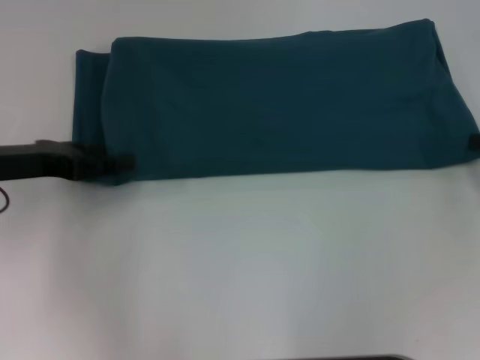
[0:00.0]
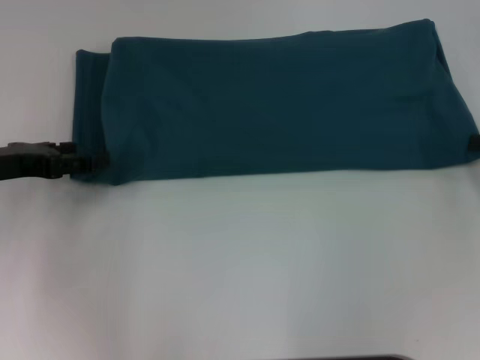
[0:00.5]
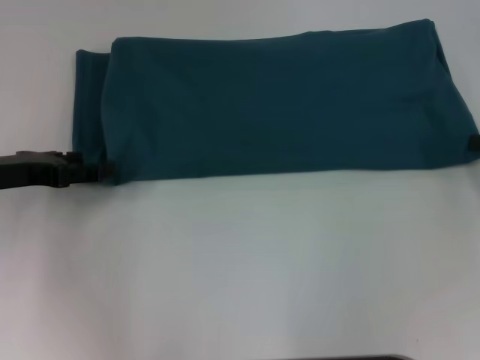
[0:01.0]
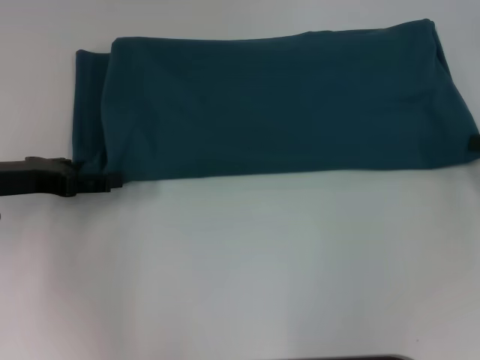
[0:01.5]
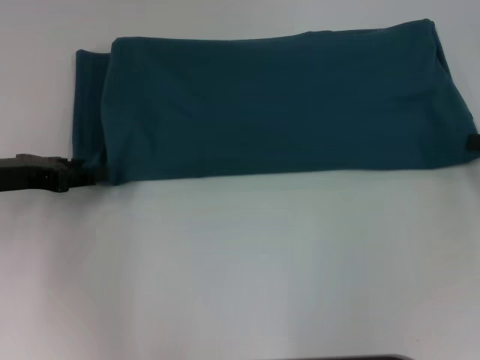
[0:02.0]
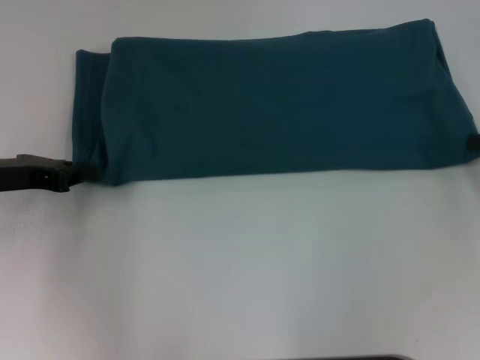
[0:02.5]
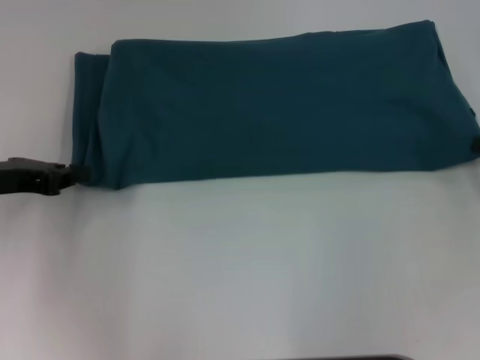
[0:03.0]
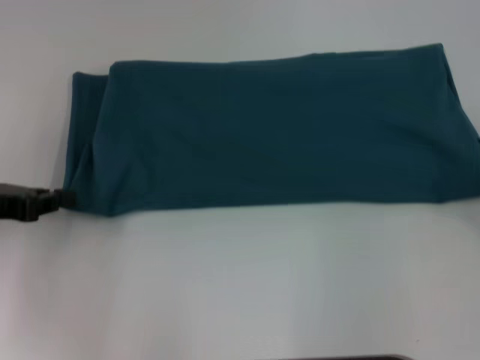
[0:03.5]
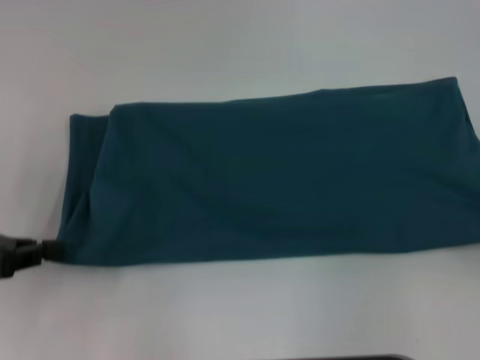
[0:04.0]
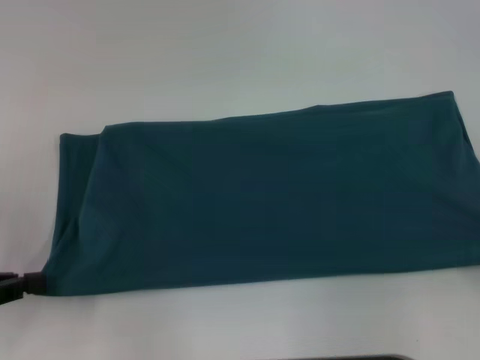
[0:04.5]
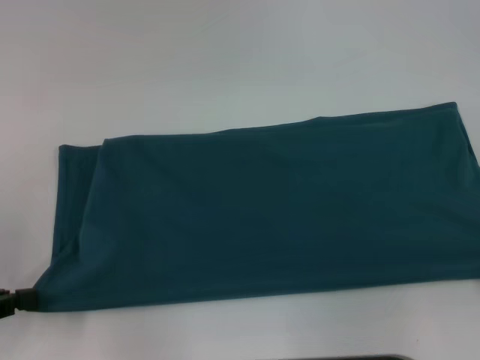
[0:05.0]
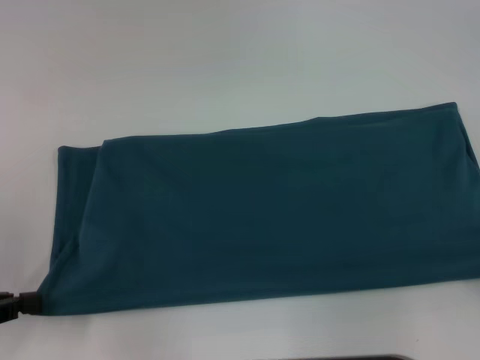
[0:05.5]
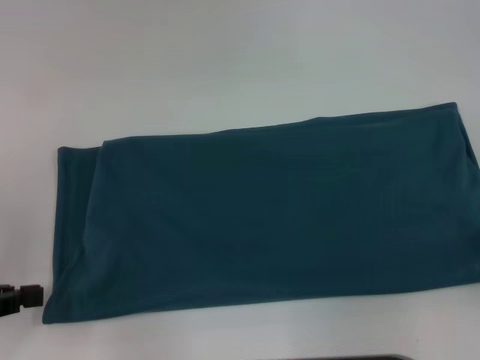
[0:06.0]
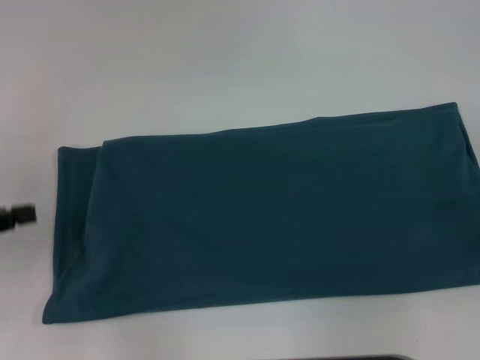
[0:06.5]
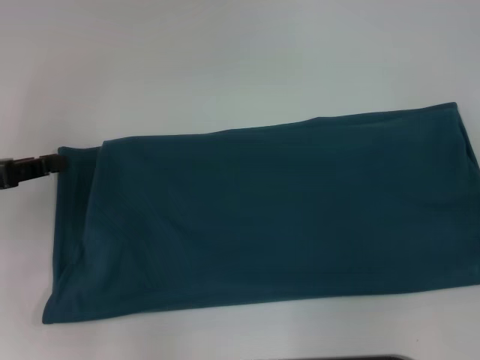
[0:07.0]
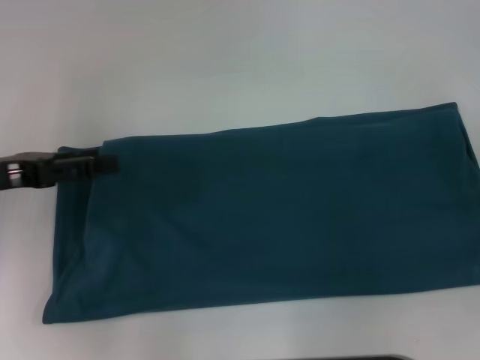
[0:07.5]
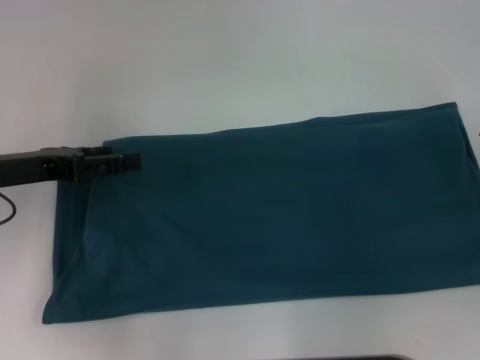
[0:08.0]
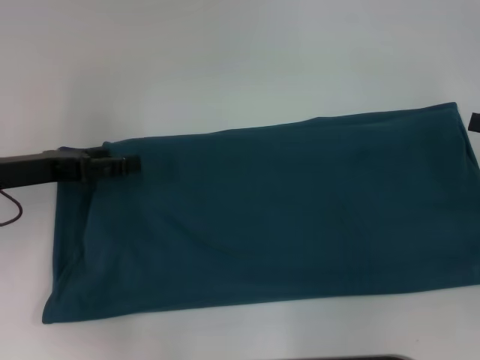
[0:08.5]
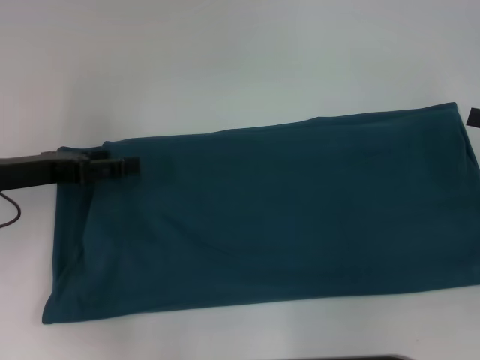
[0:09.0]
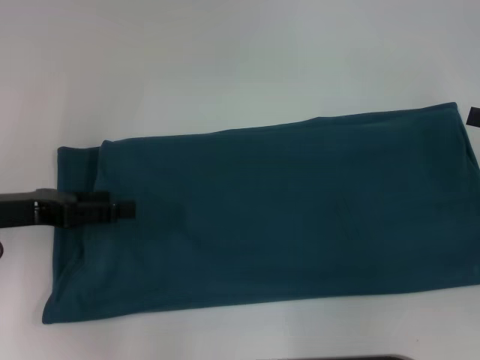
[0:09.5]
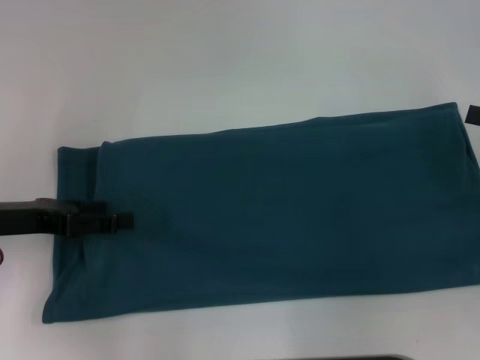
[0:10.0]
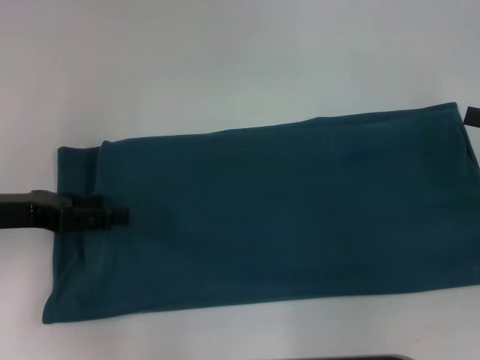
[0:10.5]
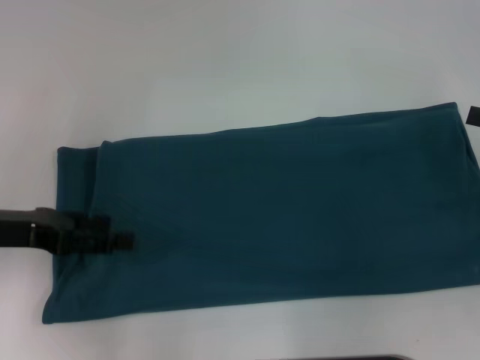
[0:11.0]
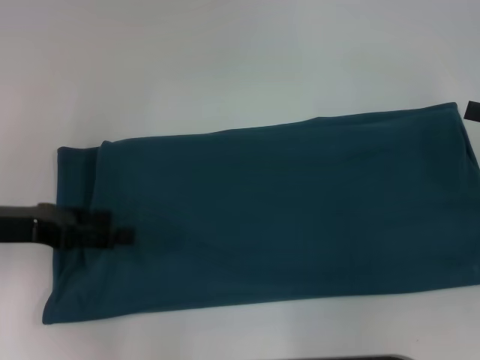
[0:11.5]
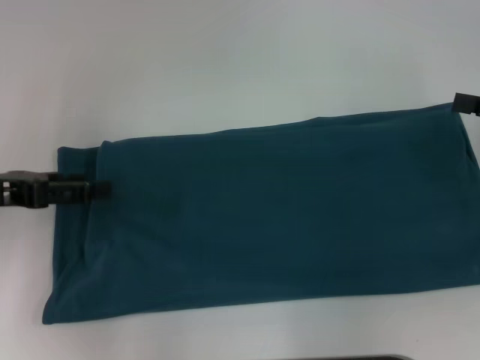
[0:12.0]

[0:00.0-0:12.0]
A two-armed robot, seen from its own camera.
0:00.0 to 0:02.0: The grippers make only small movements.
0:02.0 to 0:04.0: The left gripper moves backward, approximately 10 cm, and closes, while the right gripper moves backward, some 10 cm.
0:06.0 to 0:08.0: The left gripper is displaced forward and to the right by roughly 15 cm, and opens.
0:08.0 to 0:12.0: The grippers move only a little.

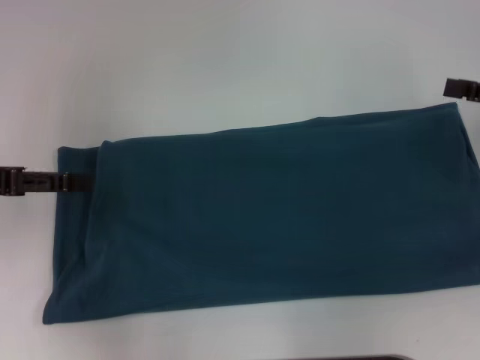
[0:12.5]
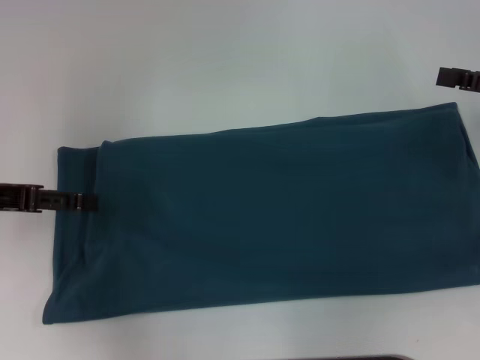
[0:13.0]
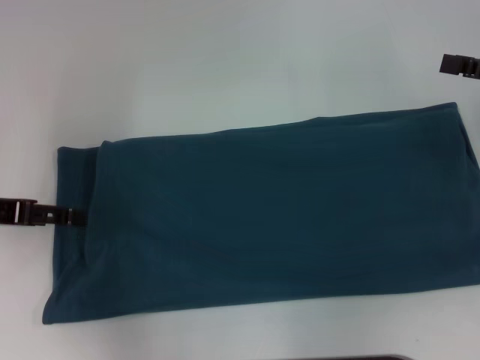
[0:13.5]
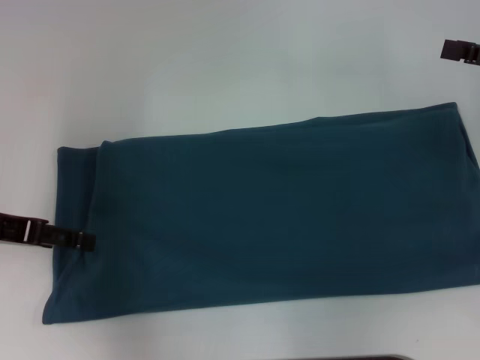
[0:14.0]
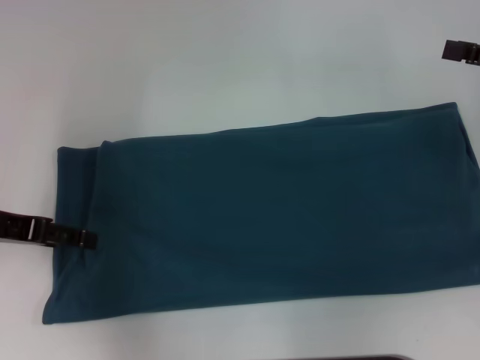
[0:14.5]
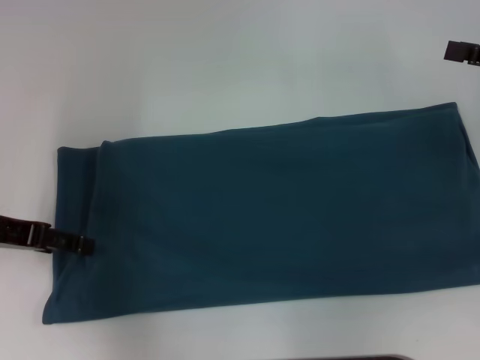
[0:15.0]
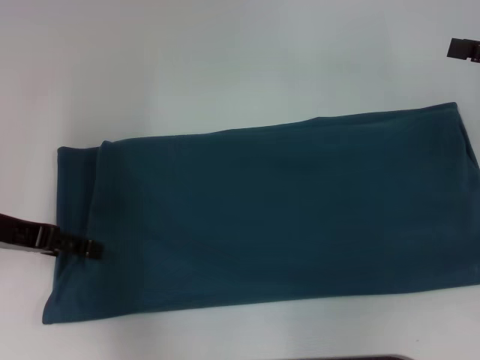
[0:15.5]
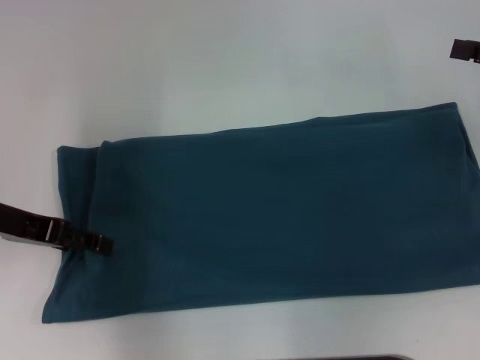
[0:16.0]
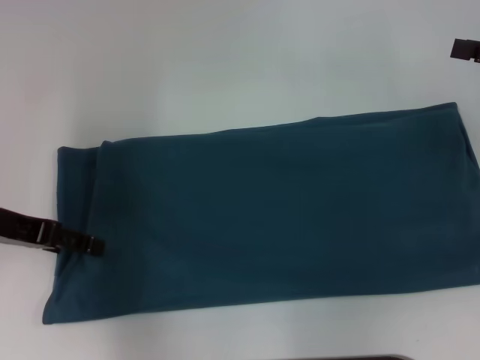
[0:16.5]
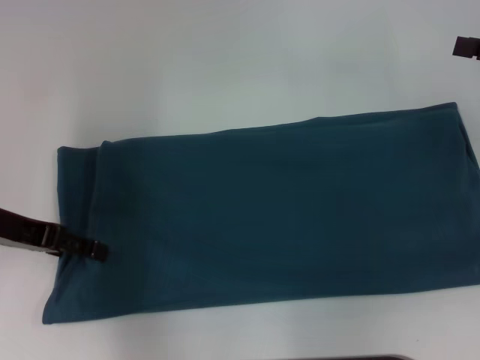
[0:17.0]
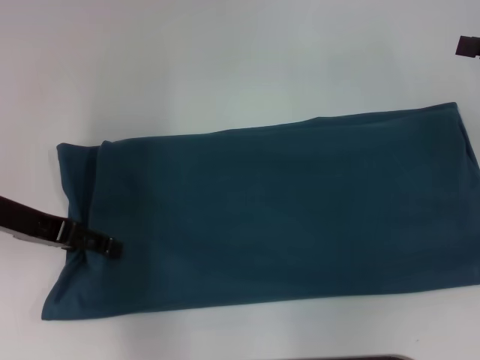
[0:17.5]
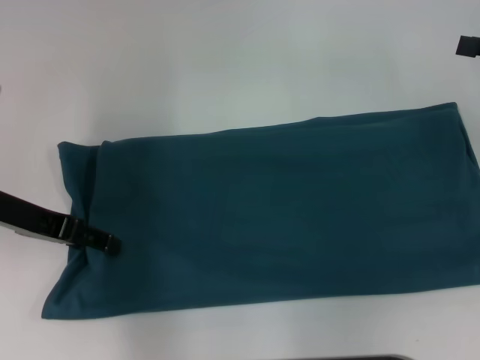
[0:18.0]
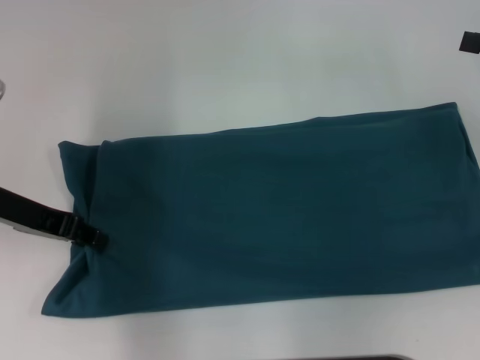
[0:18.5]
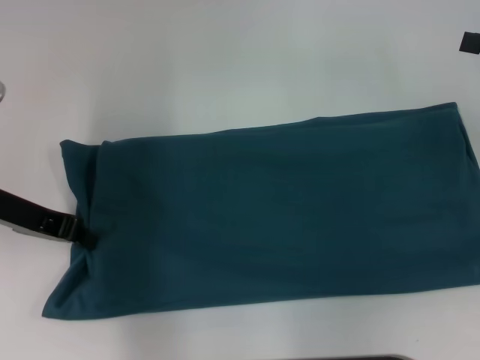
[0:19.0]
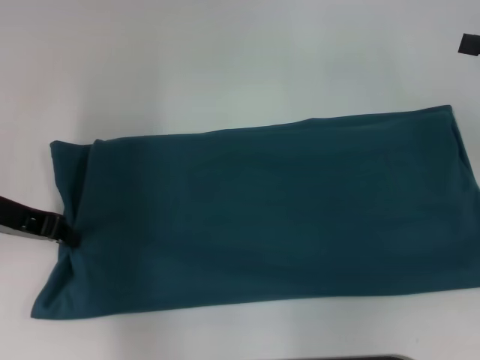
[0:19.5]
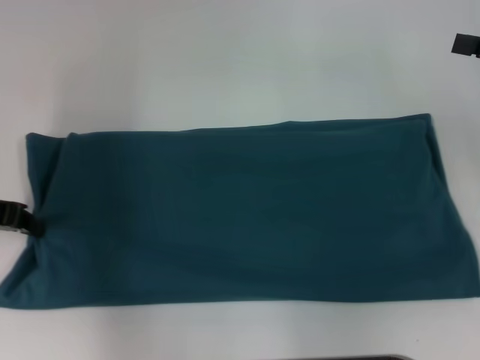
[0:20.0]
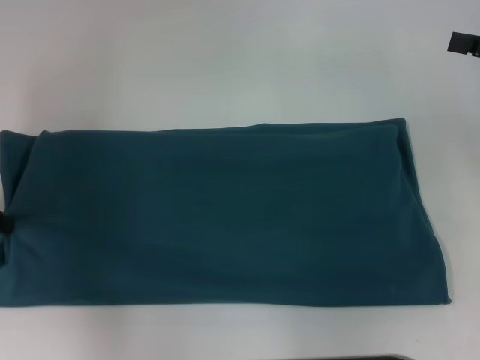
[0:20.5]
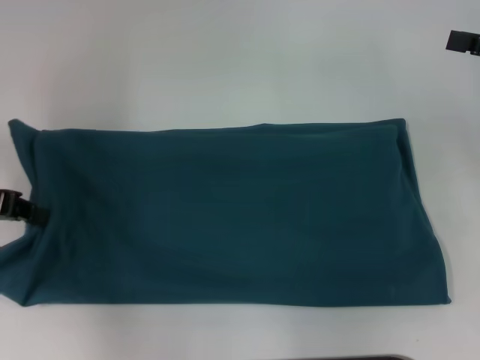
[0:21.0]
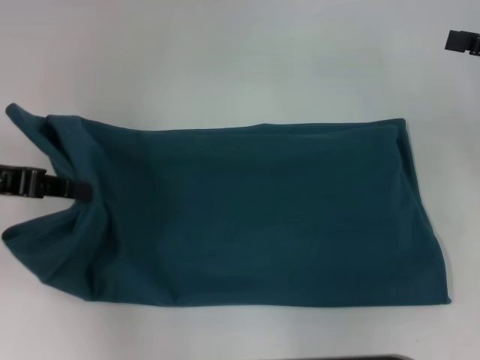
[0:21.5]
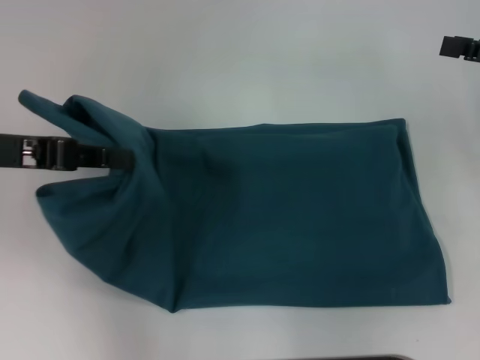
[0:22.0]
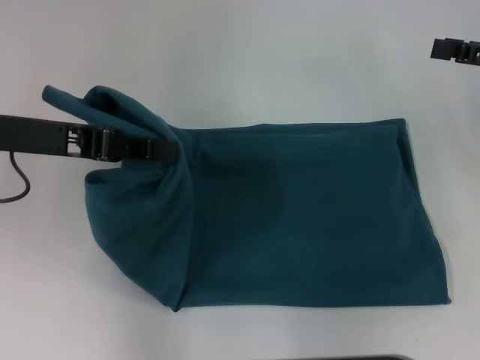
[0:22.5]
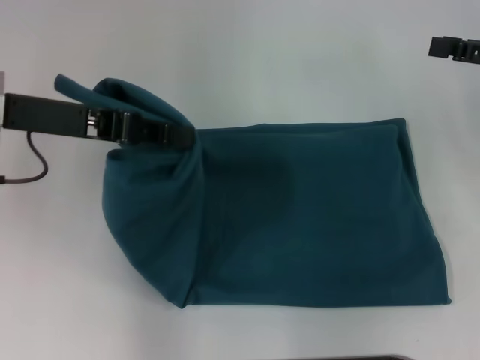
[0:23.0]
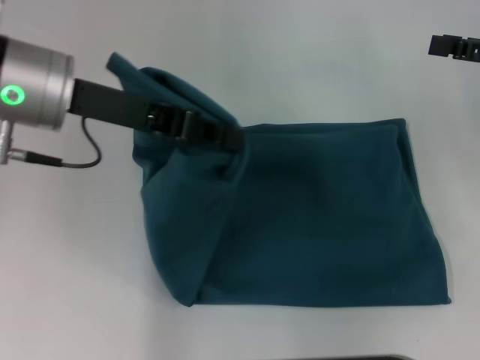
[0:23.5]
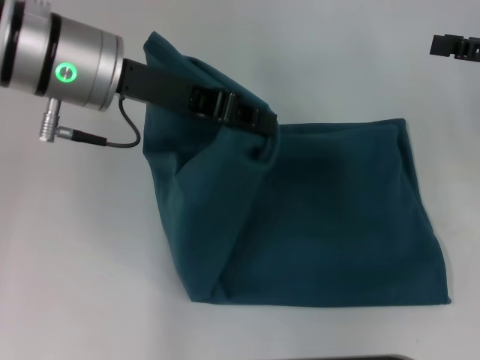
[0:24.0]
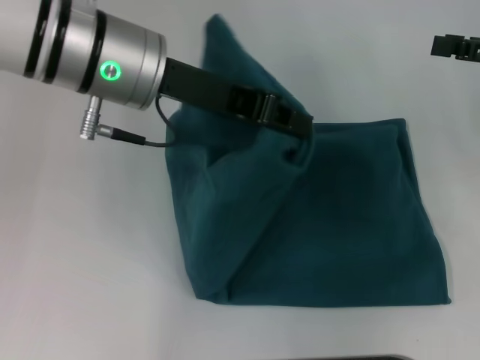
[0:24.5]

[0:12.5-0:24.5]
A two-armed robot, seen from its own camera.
0:12.5 to 0:14.5: There are only small adjustments of the grippers.
0:16.5 to 0:18.5: The left gripper closes up.
0:18.5 to 0:20.5: The left gripper is displaced to the left by some 10 cm, and closes up.
0:20.5 to 0:22.5: The left gripper is displaced to the right and upward by some 10 cm.
0:22.5 to 0:24.5: The left gripper shifts roughly 15 cm to the right.

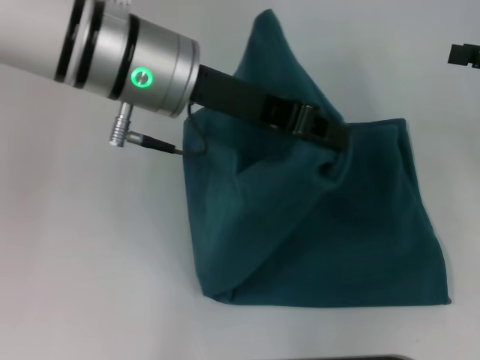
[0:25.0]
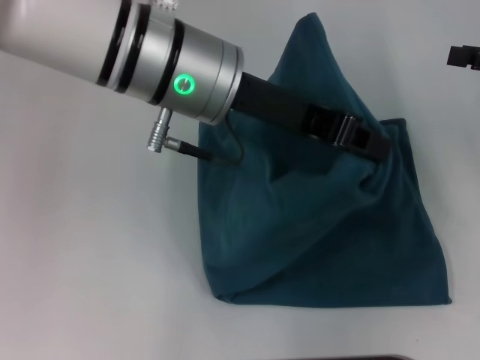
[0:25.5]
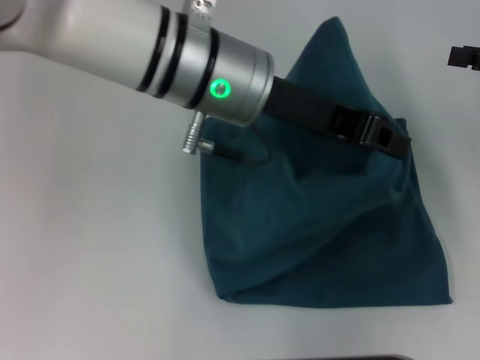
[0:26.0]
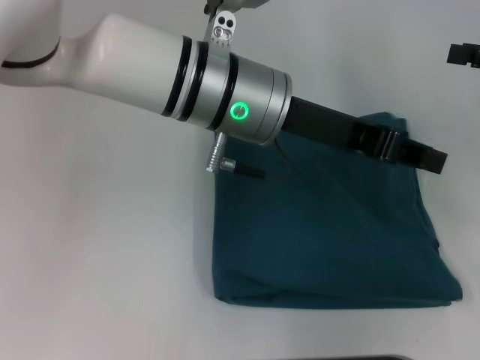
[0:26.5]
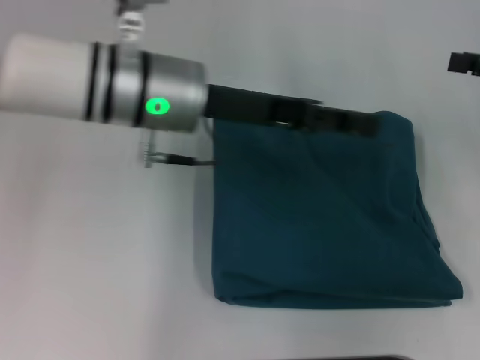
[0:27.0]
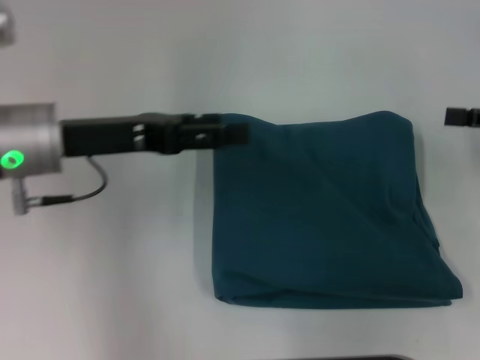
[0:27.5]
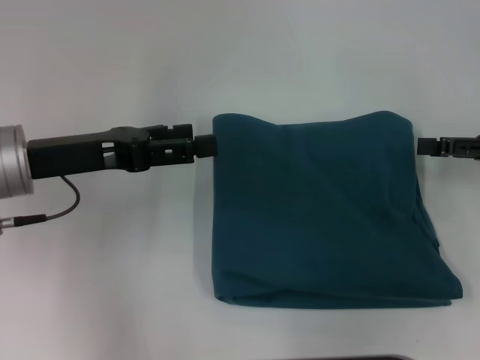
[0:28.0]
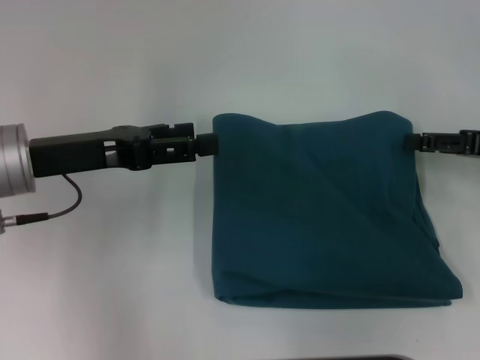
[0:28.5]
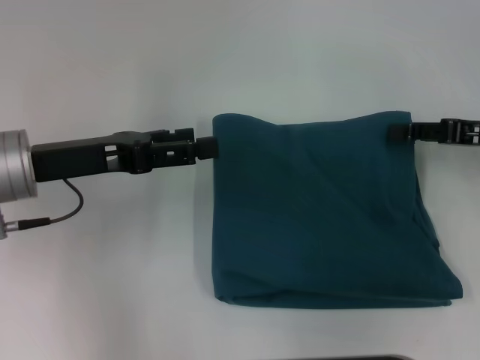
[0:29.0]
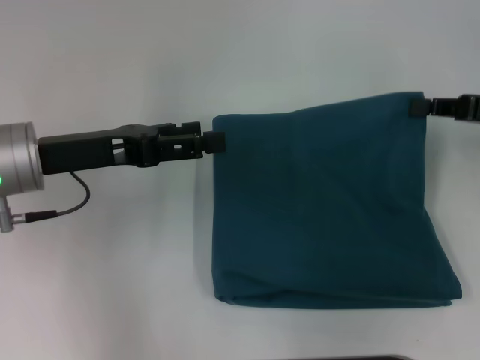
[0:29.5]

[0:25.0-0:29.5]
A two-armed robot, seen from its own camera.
0:25.0 to 0:27.0: The left gripper opens.
0:27.0 to 0:29.5: The left gripper travels to the left by about 15 cm, and opens its fingers; the right gripper closes.
